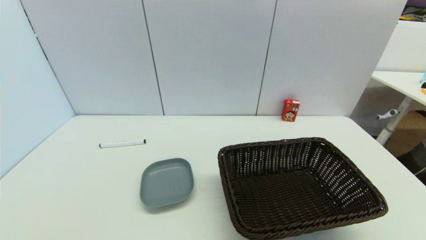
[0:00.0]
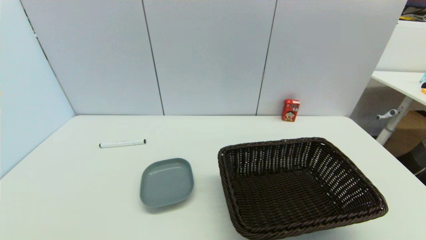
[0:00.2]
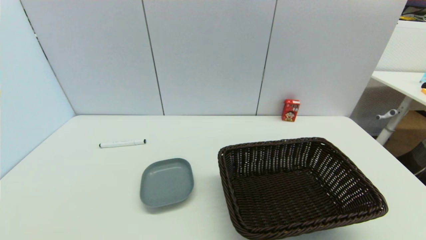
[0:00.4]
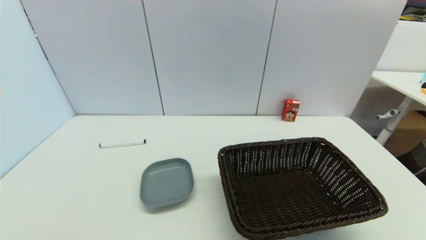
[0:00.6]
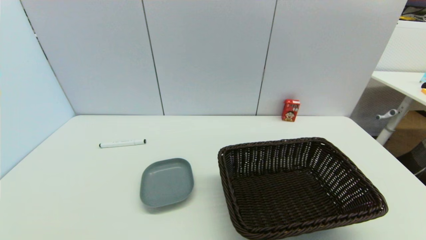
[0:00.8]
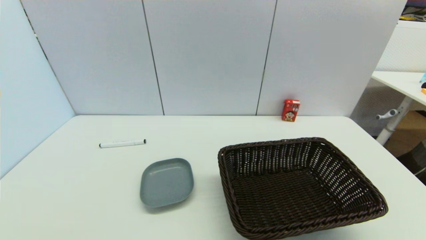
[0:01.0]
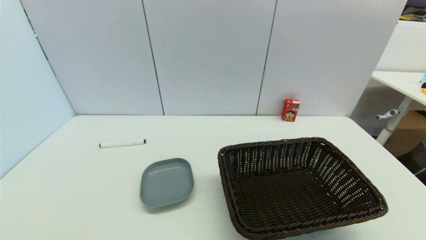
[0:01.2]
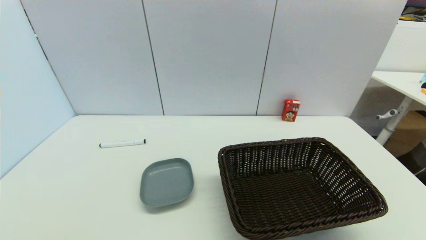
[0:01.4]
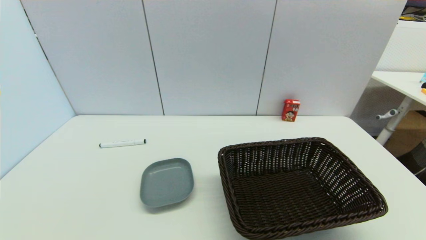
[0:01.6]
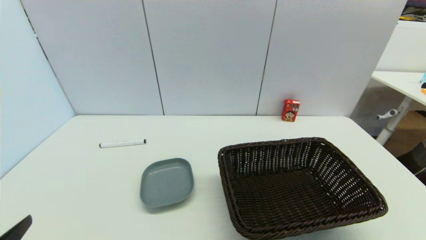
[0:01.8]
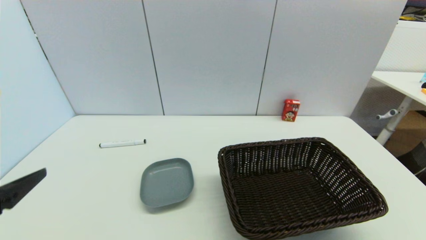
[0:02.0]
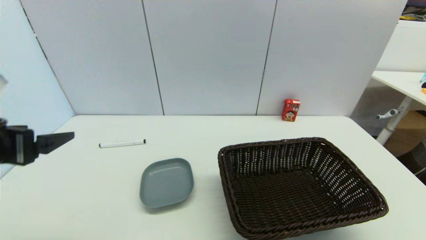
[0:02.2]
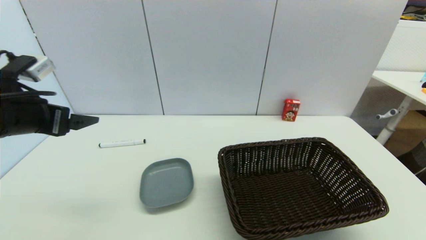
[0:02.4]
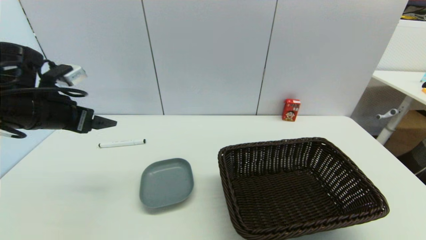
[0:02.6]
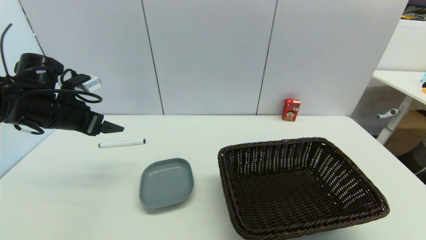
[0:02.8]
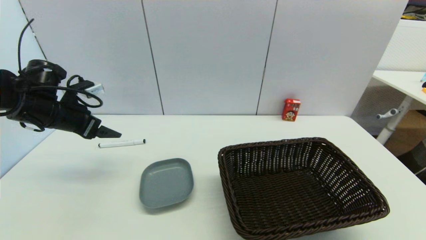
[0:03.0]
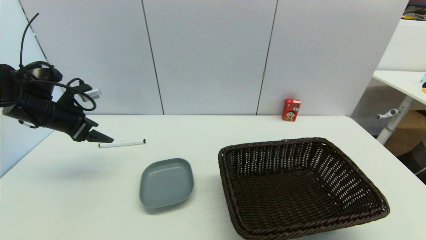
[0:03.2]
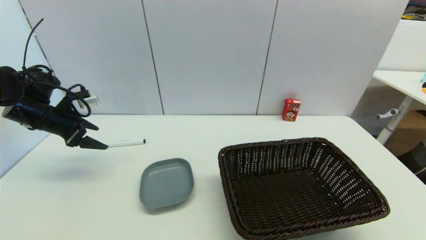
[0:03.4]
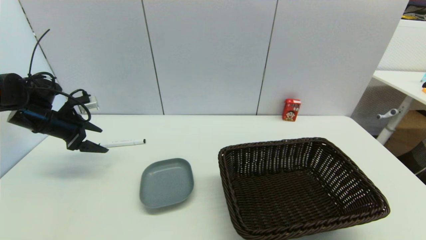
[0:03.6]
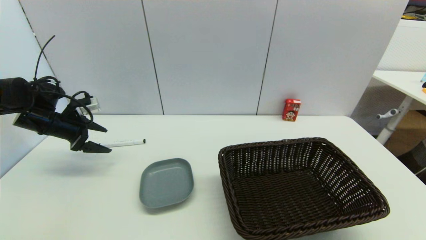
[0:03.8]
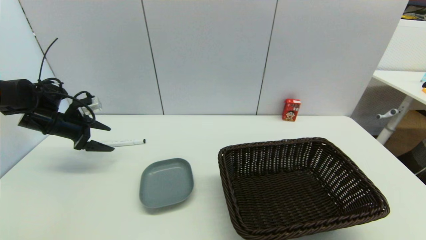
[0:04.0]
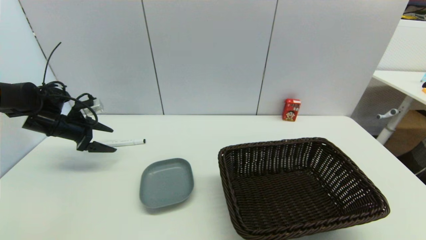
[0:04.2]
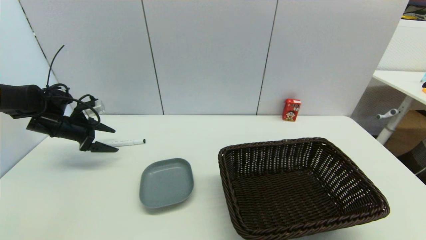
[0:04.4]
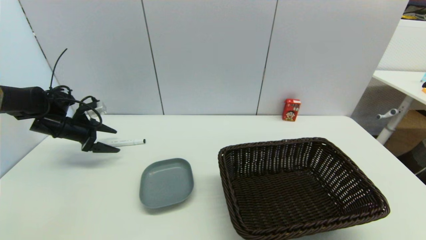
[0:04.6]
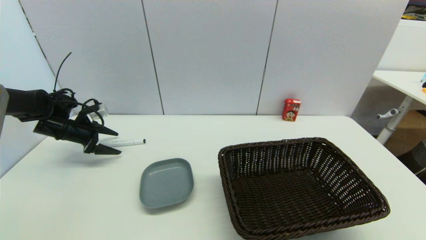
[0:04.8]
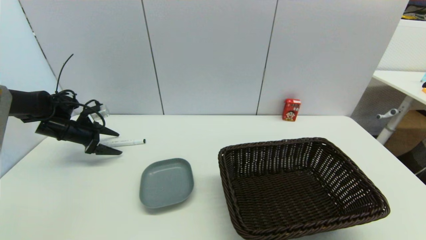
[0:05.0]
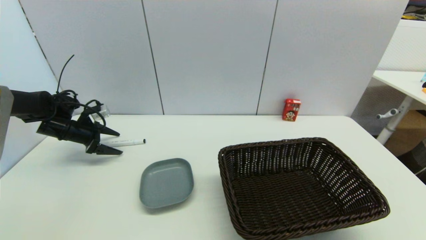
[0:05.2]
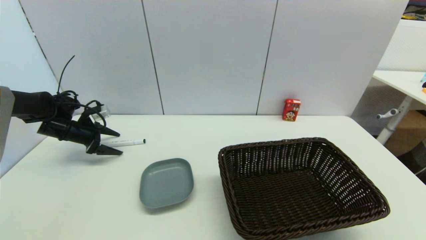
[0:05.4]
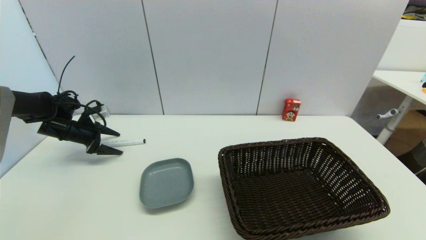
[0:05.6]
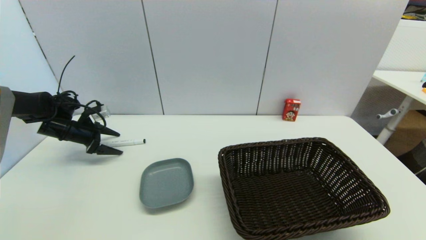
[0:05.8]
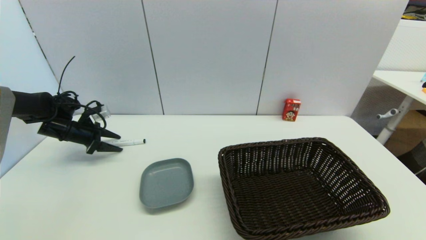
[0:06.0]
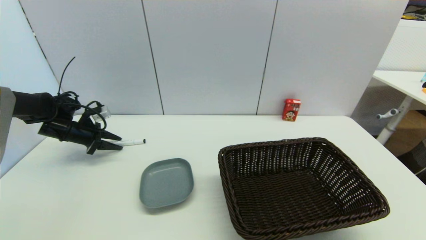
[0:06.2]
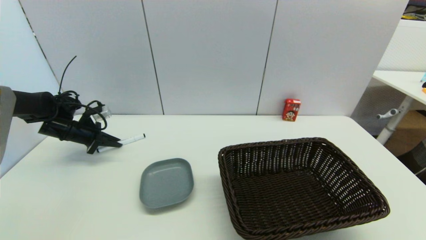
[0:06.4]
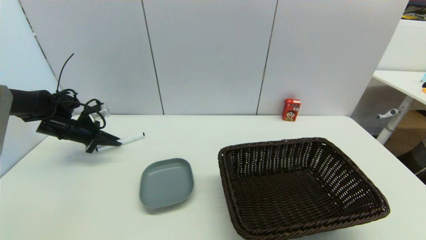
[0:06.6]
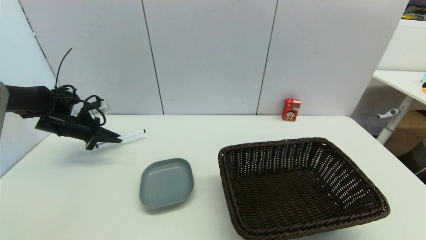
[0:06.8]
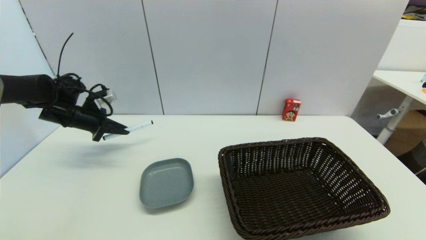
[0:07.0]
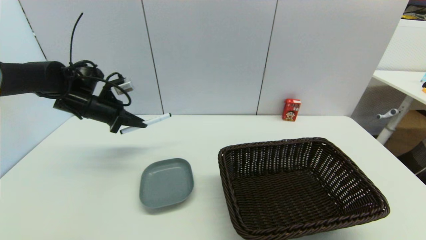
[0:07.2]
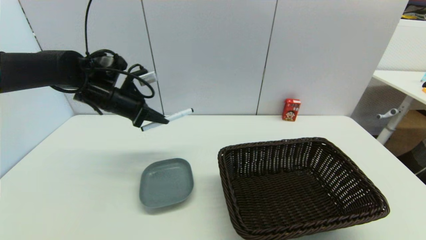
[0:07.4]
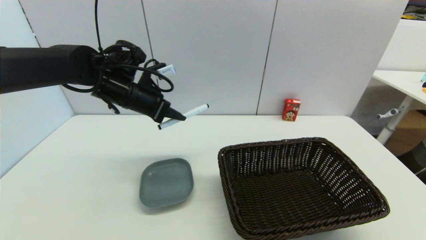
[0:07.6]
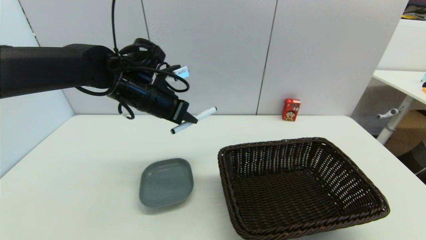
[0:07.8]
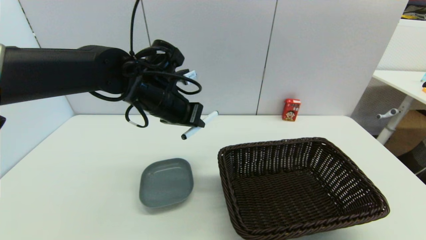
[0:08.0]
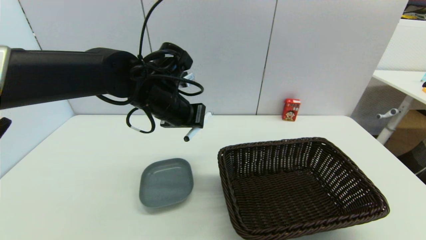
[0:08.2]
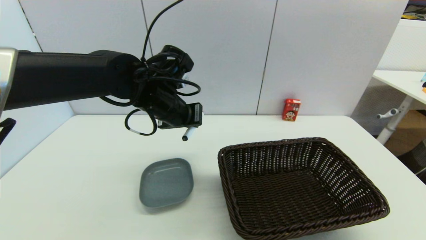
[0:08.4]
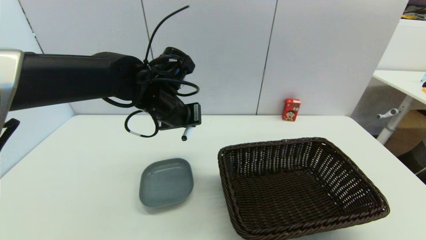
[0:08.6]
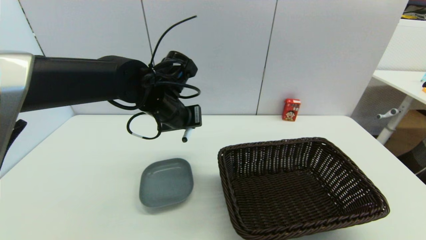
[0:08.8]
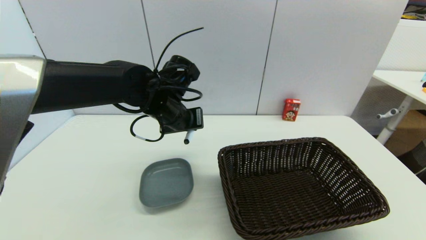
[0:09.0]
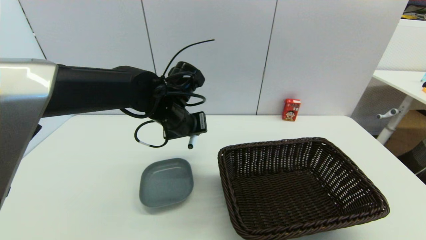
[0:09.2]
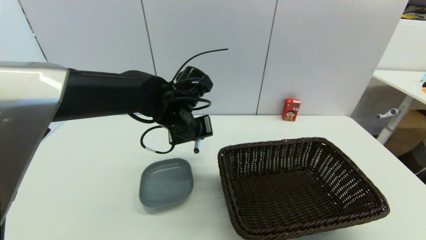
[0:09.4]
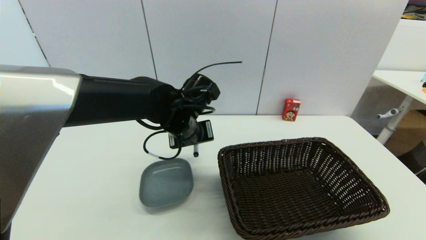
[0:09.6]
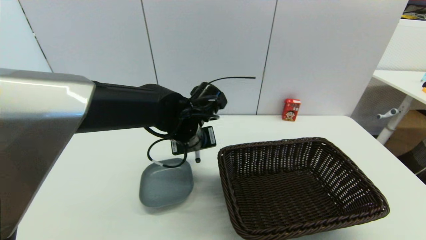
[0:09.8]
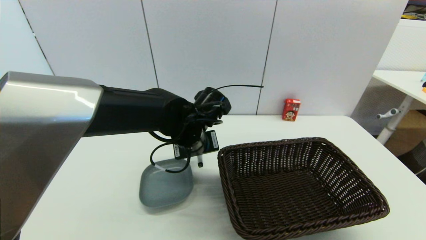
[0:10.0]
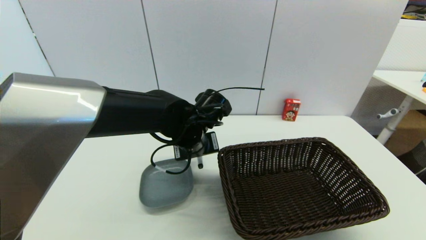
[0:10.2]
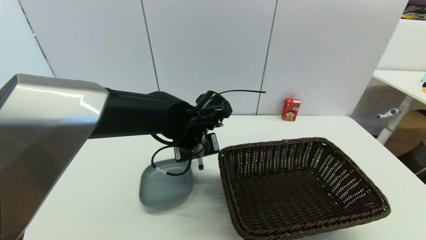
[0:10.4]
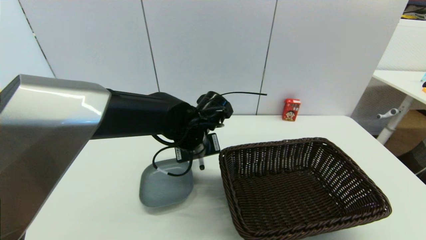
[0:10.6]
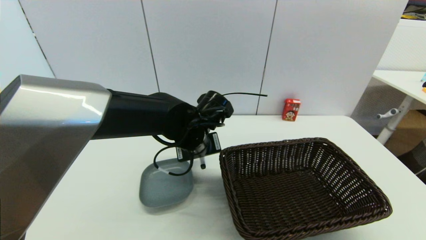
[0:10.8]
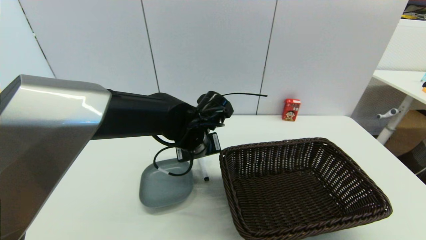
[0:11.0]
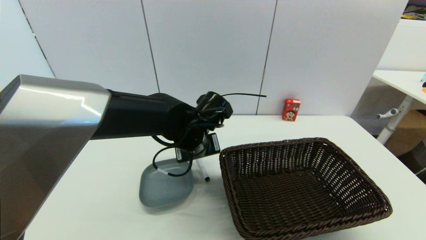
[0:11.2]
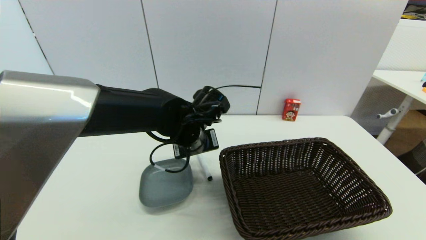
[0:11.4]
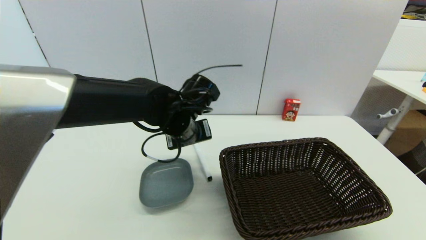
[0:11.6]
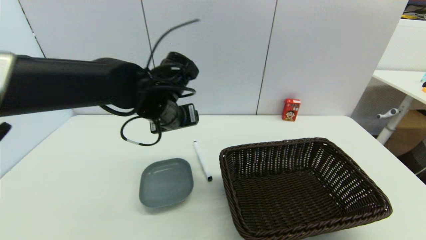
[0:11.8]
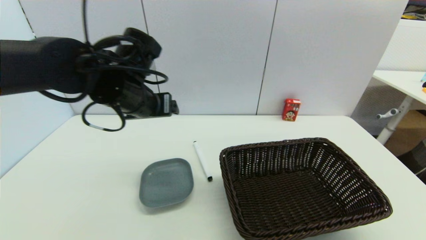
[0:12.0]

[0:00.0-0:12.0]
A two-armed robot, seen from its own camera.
Task of the whole recording: put the black marker in the designated position.
Step, 0:01.8 to 0:06.4: Grasp the Marker pen with left gripper.
Step, 0:06.6 to 0:11.0: Place the Marker pen on the table with left gripper.
0:01.6 to 0:03.0: The left gripper moves forward, roughly 35 cm.
0:03.0 to 0:04.4: The left gripper moves downward, to the left and forward, roughly 10 cm.
0:04.4 to 0:06.0: The left gripper closes.
0:06.0 to 0:07.6: The left gripper moves to the right and upward, approximately 25 cm, and closes its fingers.
0:07.6 to 0:09.0: The left gripper travels to the right by some 10 cm.
0:09.0 to 0:10.4: The left gripper is displaced downward by some 5 cm.
0:10.4 to 0:12.0: The left gripper moves to the left and upward, about 15 cm, and opens.

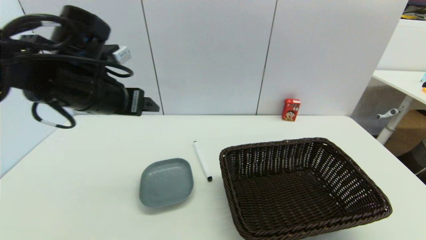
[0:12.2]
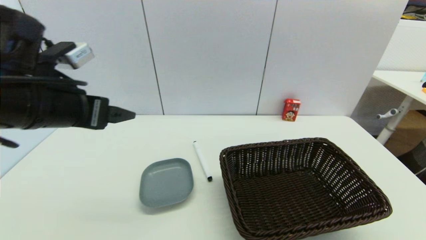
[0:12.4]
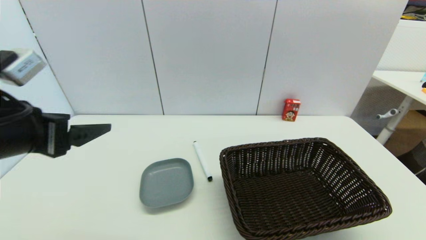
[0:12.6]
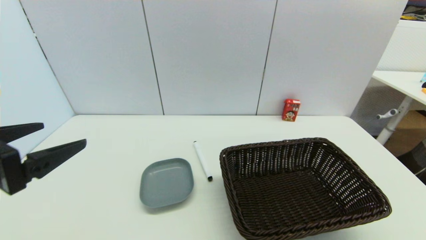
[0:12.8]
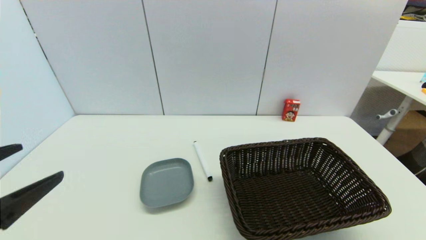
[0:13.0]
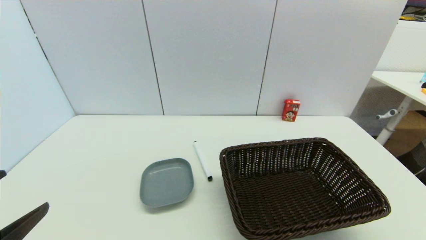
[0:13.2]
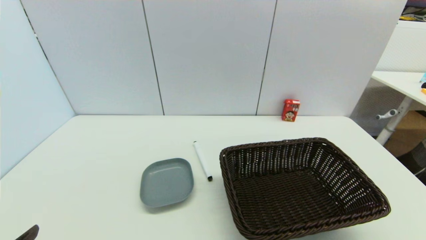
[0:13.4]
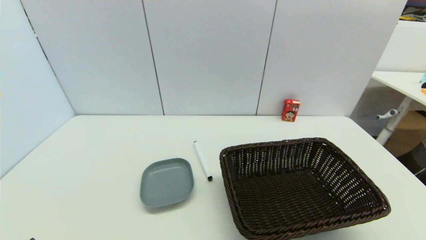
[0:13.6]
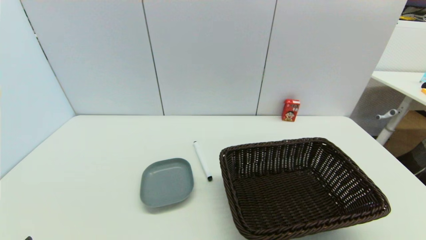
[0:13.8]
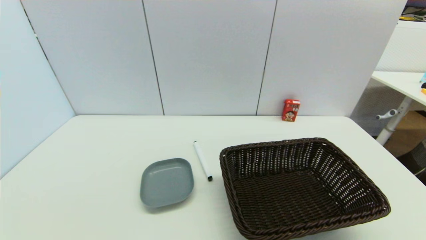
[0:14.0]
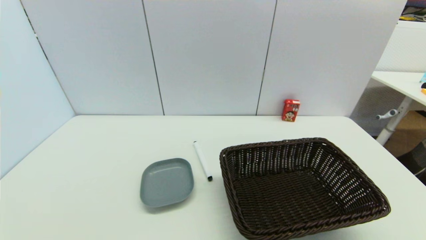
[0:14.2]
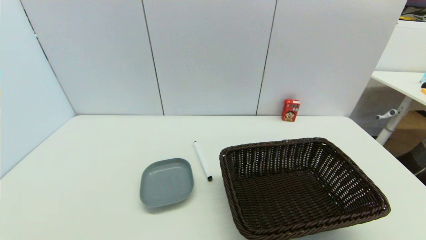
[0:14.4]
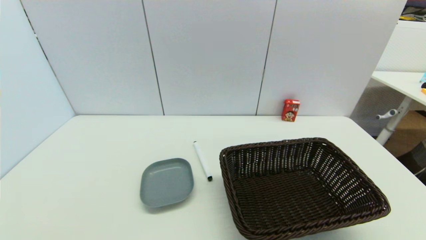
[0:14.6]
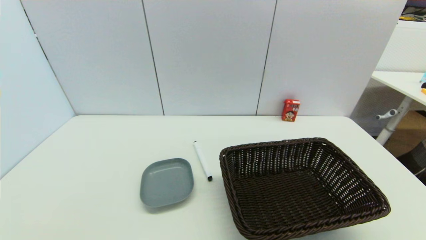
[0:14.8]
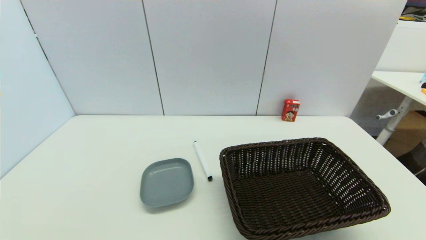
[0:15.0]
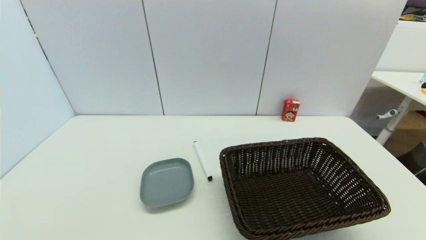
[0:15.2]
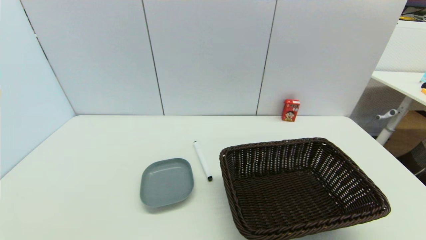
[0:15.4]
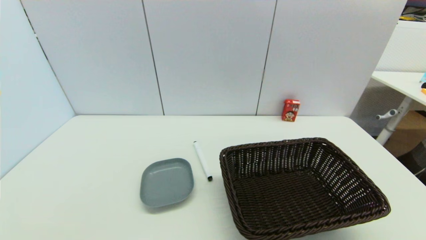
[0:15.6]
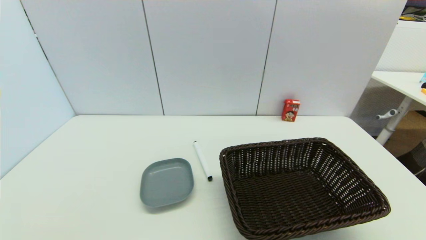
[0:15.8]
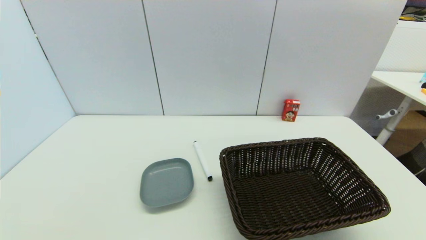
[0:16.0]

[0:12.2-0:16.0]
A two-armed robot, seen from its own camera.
Task of the whole recording: put the black marker in the designated position.
0:12.2 to 0:13.4: The left gripper moves backward, downward and to the left, about 30 cm.
0:14.8 to 0:16.0: Both grippers stay about where they are.
